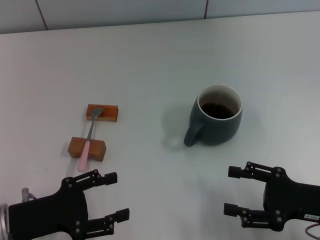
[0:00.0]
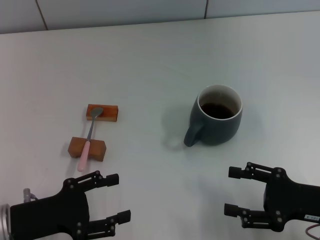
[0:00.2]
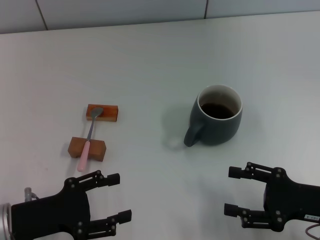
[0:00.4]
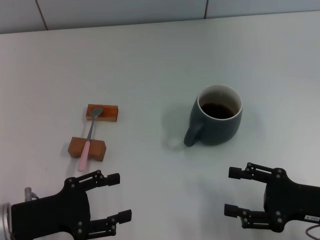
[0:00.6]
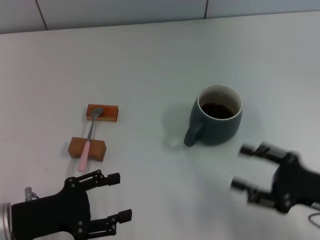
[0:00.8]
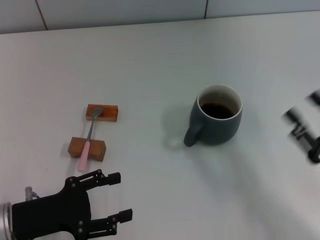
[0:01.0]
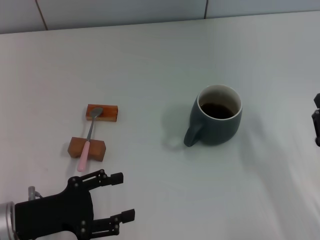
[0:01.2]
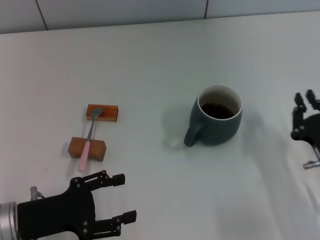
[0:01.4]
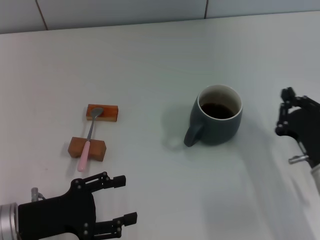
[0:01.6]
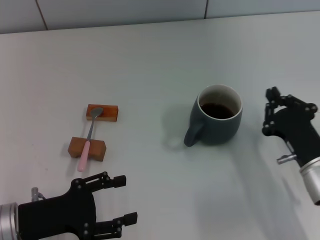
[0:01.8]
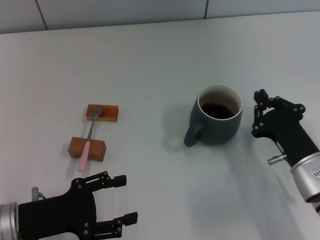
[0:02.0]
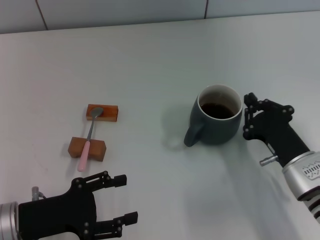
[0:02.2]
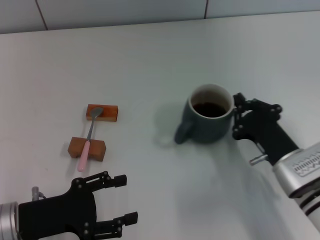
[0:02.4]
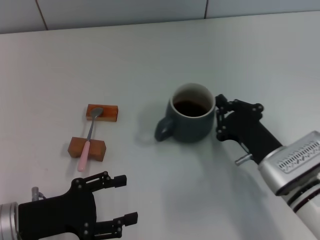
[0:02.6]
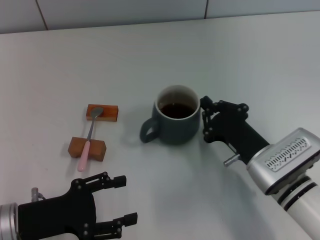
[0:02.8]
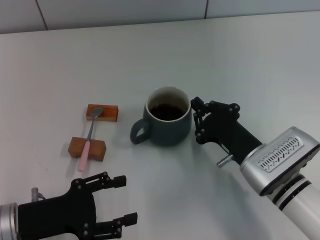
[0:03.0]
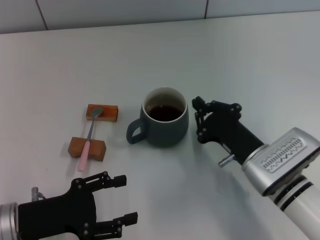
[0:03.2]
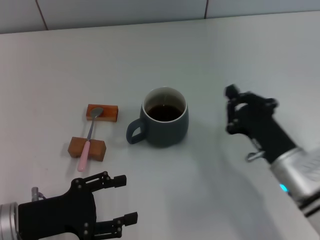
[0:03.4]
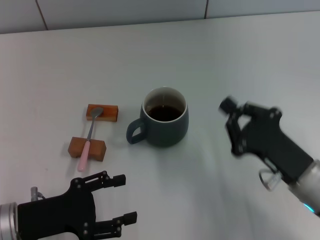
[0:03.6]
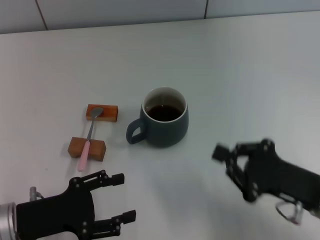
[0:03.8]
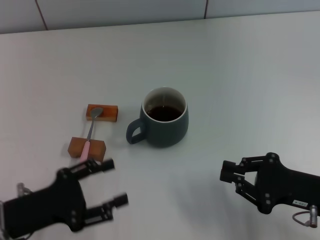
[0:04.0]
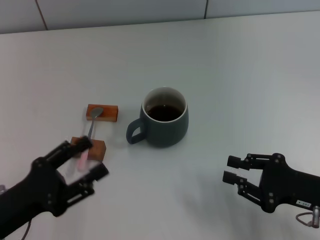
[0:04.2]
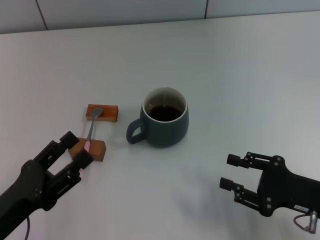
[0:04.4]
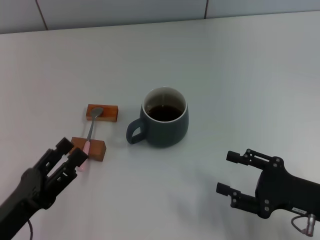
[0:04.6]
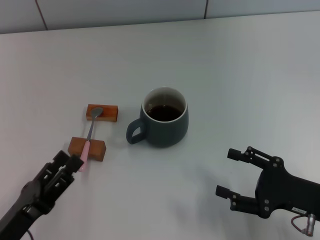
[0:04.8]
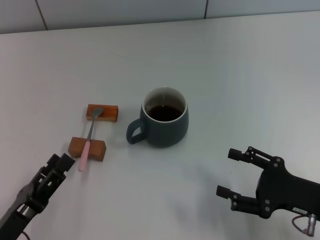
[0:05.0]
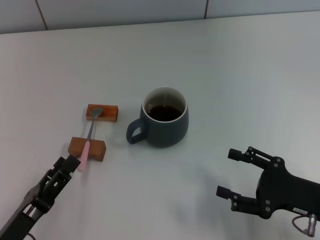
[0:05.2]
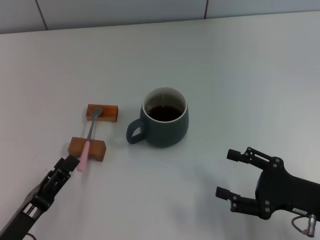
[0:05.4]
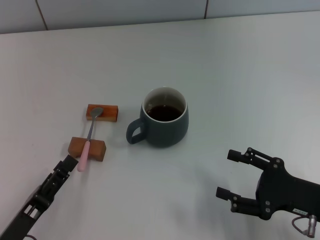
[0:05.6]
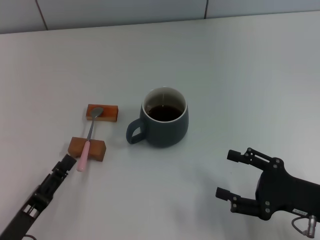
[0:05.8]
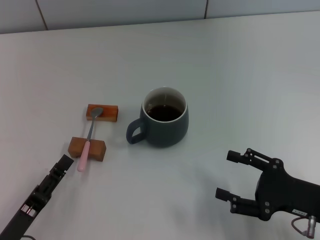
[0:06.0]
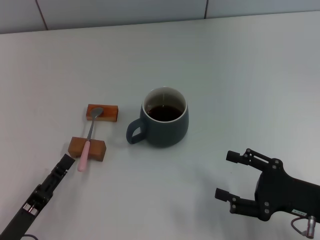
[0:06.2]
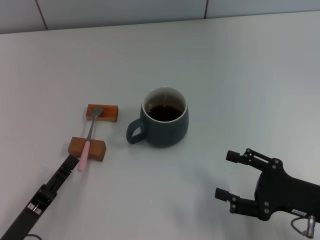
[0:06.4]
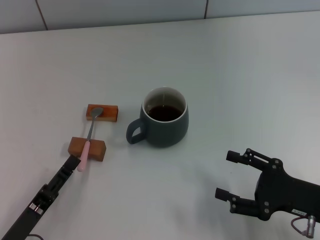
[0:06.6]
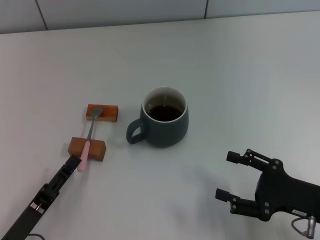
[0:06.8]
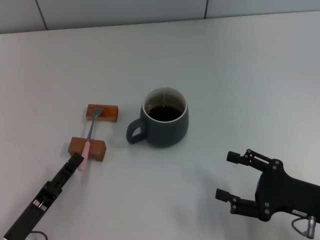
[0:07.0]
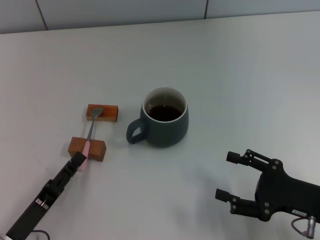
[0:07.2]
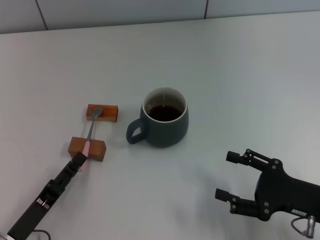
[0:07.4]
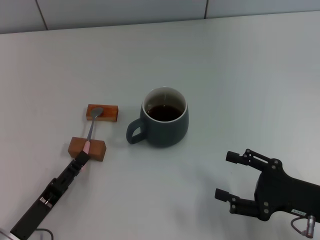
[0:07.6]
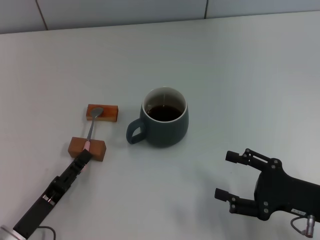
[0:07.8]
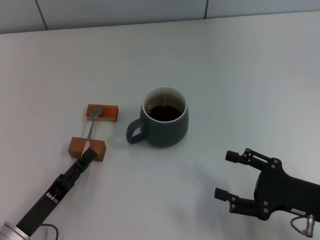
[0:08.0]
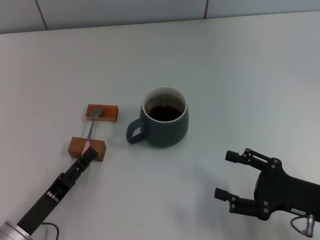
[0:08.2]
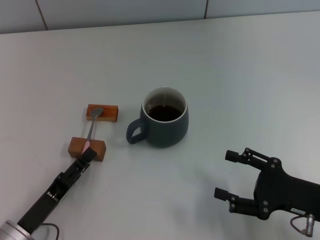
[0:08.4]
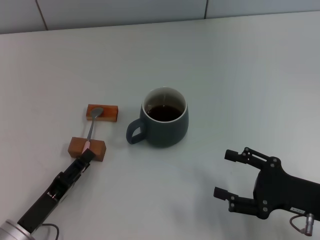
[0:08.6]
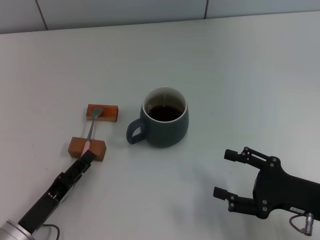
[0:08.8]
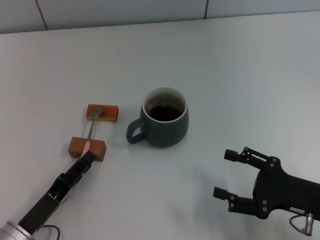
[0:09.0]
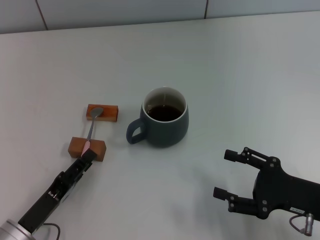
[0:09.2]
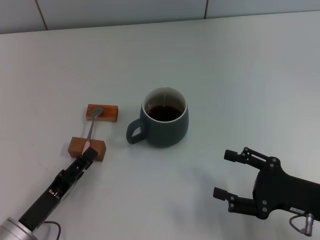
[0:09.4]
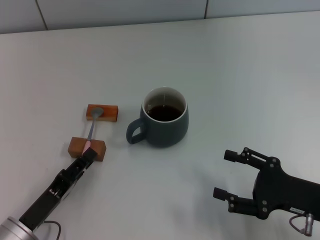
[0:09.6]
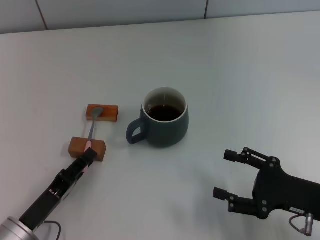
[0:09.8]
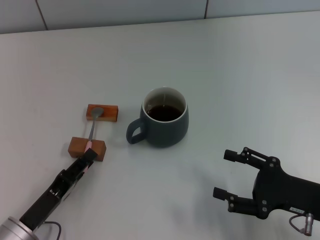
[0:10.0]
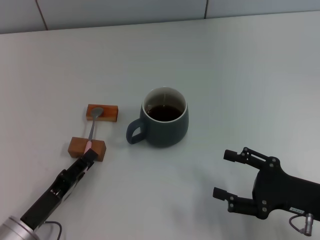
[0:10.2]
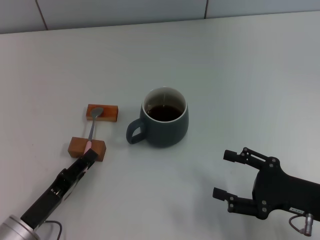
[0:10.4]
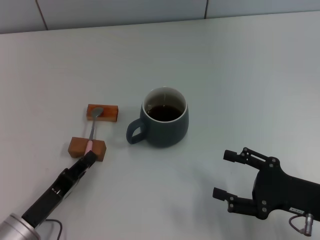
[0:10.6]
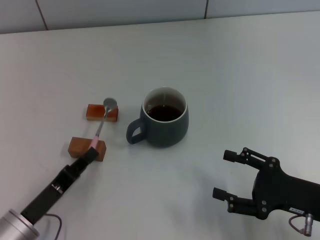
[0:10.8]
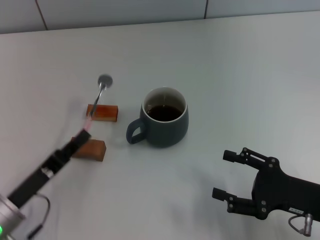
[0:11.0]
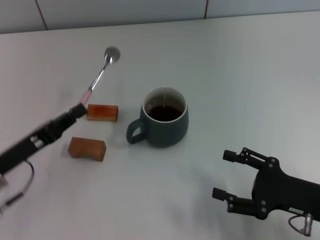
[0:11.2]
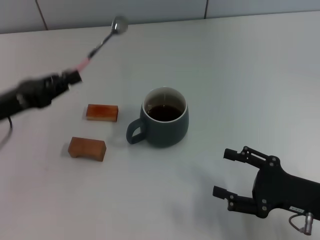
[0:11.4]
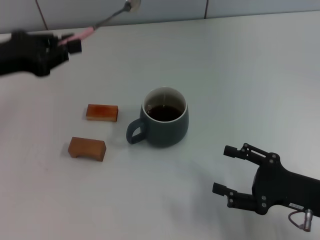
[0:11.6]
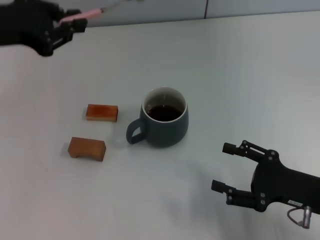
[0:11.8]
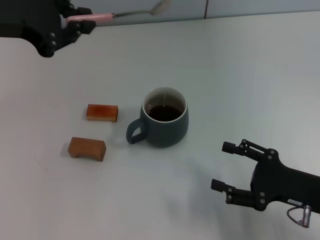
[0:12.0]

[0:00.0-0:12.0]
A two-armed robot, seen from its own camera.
Task of the whole recording: Move the grey cup to the center, lift the pink spoon, stir it three times in the cup, and put the spoon into the cup.
Step, 0:00.0 to 0:03.0: Move the cup with coffee to the center of view with the right gripper.
Step, 0:03.2 to 0:10.6: Pick up the spoon with the left gripper.
0:00.0 to 0:01.6: The right gripper changes place by approximately 5 cm, and closes up.
0:01.6 to 0:03.0: The right gripper shifts about 10 cm to the left.
0:03.0 to 0:04.4: The right gripper heads to the right and backward, covering about 15 cm, and opens its fingers.
0:04.4 to 0:06.0: The right gripper opens its fingers. Meanwhile the left gripper ends up some 5 cm from where it was.
0:06.0 to 0:07.6: The grippers stay close to where they were, moving slightly.
0:07.6 to 0:09.0: The two grippers keep their place.
0:09.0 to 0:10.4: Neither gripper changes place.
0:10.4 to 0:12.0: The left gripper moves upward and forward, approximately 35 cm, and closes its fingers.

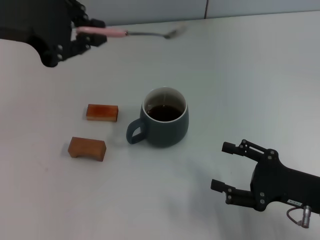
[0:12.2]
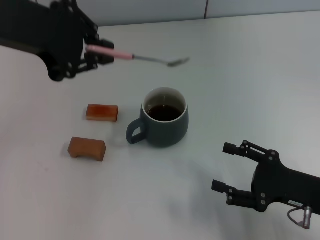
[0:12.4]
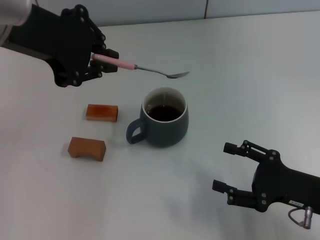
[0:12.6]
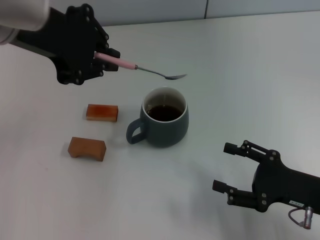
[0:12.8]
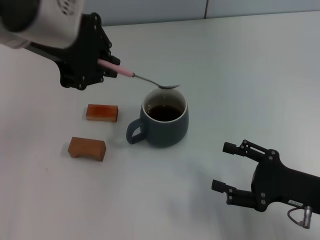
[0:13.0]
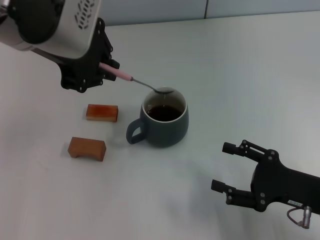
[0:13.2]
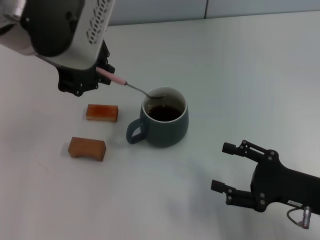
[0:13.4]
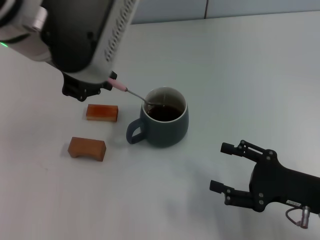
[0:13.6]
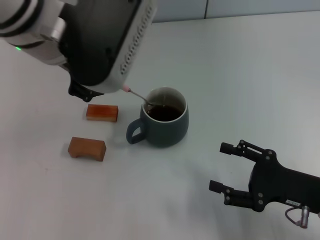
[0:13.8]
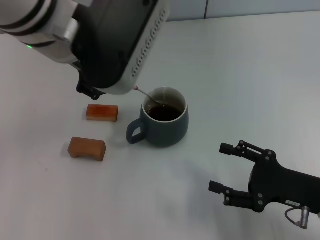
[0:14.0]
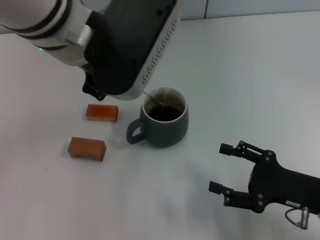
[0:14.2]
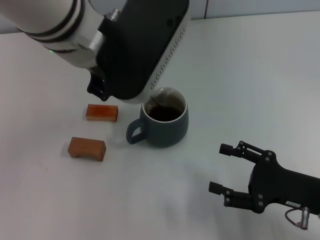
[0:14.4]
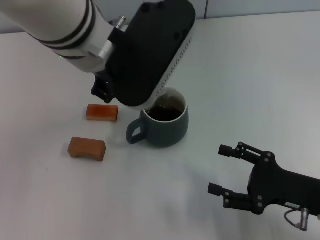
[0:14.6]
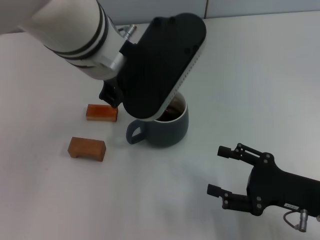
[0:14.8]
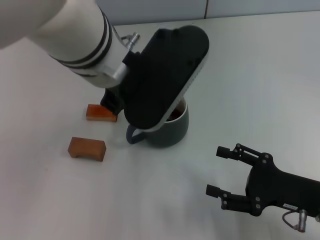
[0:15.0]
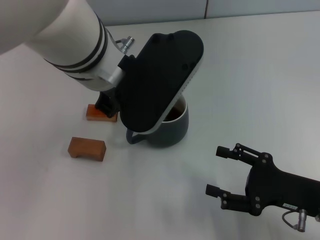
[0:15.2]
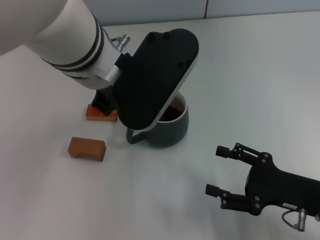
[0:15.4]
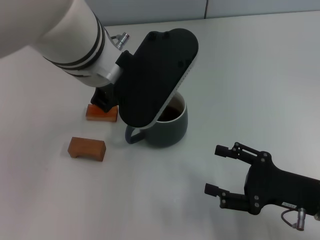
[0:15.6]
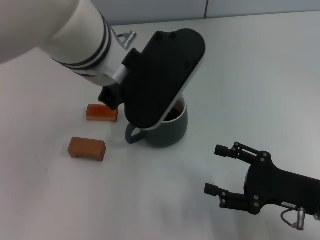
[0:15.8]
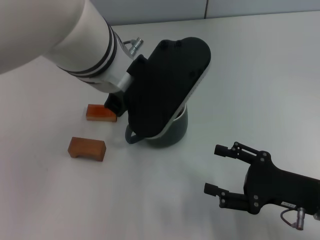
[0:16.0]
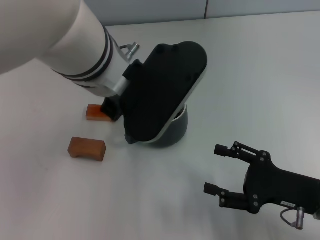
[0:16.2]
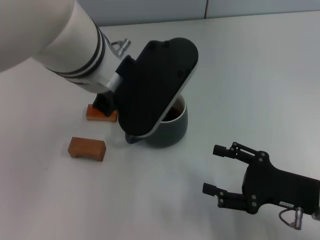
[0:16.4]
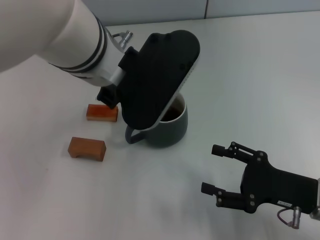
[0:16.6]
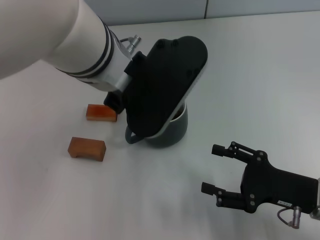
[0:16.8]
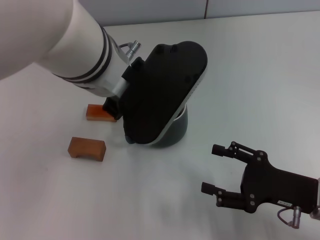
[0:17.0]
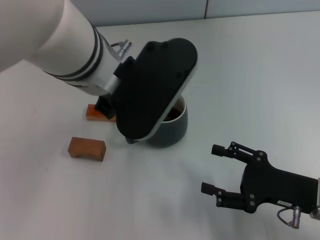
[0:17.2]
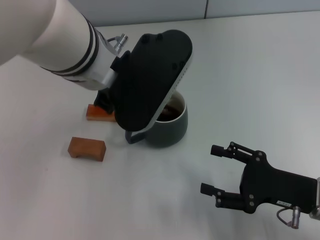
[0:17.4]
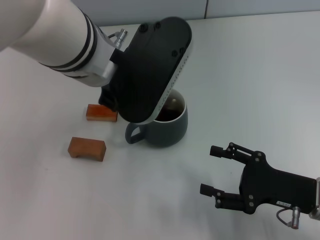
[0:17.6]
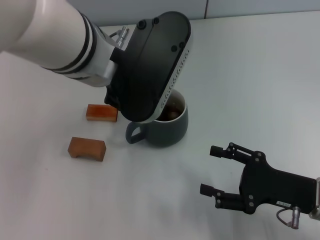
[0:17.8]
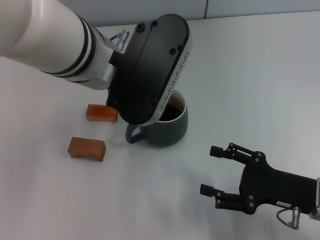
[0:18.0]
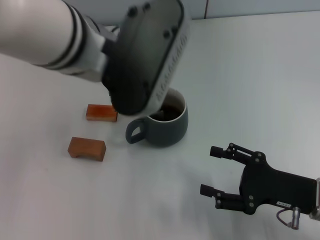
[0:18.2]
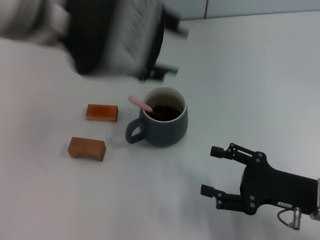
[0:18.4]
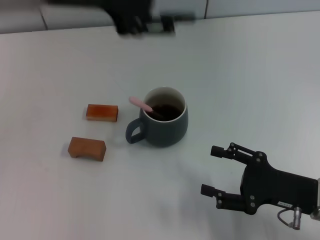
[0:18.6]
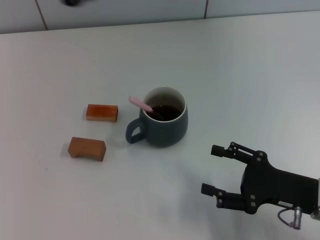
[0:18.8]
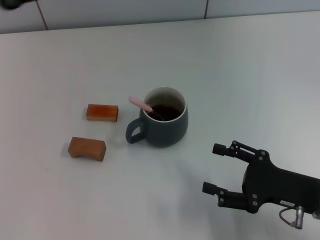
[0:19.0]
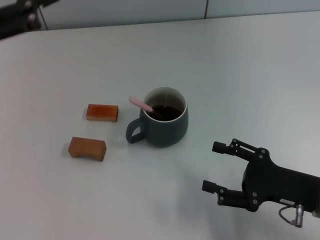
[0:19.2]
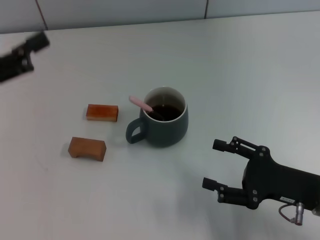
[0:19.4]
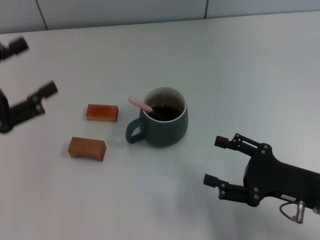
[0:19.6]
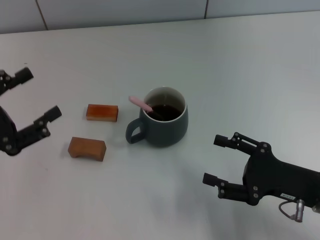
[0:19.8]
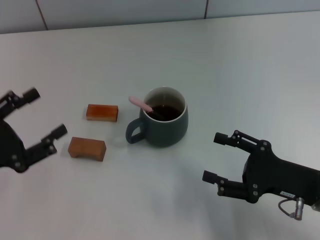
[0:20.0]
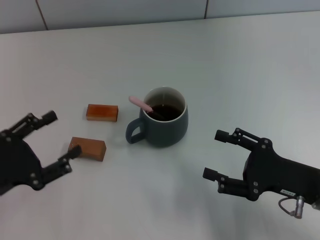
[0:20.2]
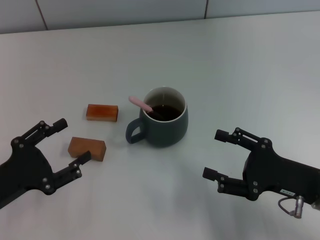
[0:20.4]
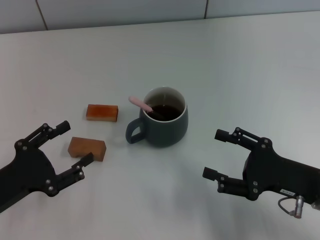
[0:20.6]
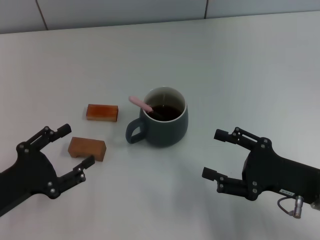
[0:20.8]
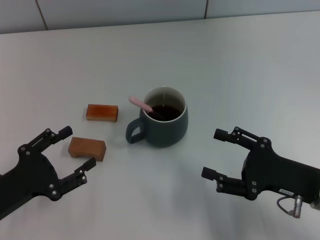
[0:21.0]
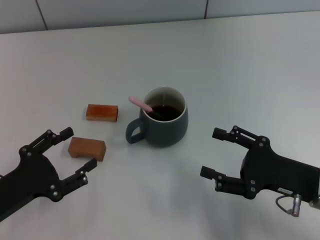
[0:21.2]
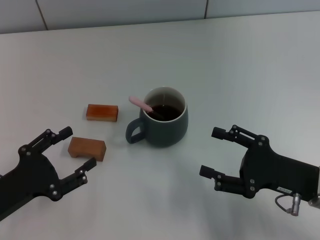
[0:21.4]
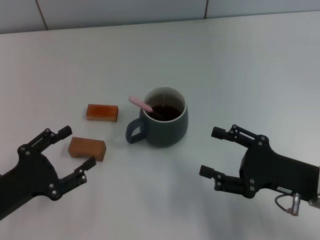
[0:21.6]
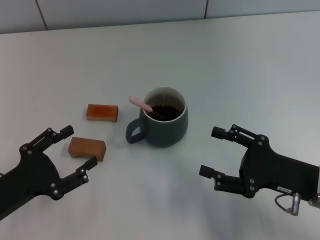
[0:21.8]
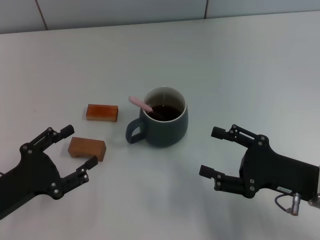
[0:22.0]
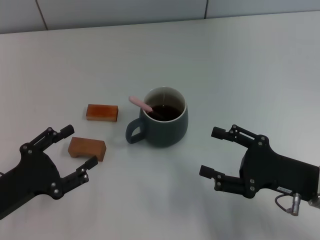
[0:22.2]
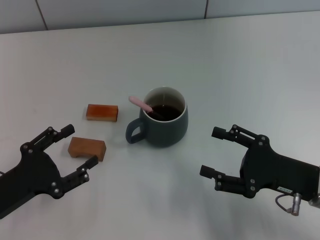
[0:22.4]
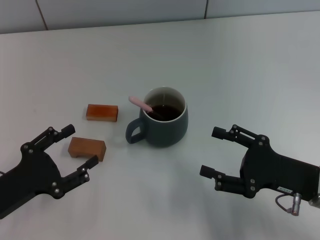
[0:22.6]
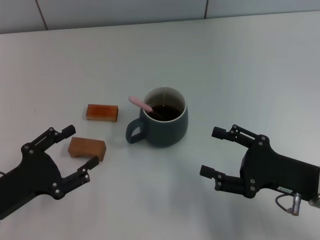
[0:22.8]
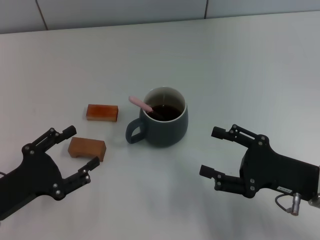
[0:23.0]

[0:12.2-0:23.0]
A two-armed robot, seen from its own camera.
Task of the whole recording: Move the grey cup to the center, lift the pink spoon, stir it three times in the cup, and put the spoon into the cup.
Step, 0:12.2 to 0:18.2: Stir the coffee in the cup with the left gripper.
0:12.2 to 0:13.8: The left gripper heads to the right, covering about 10 cm.
0:13.8 to 0:15.2: The left gripper ends up about 5 cm from where it was.
0:15.2 to 0:16.8: Both grippers stay about where they are.
0:16.8 to 0:18.4: The left gripper moves upward, roughly 5 cm, and opens.
0:18.4 to 0:20.0: The left gripper is displaced downward, to the left and backward by approximately 30 cm.
0:20.0 to 0:21.4: The left gripper shifts by some 5 cm.
0:21.4 to 0:23.0: Neither gripper changes place.
